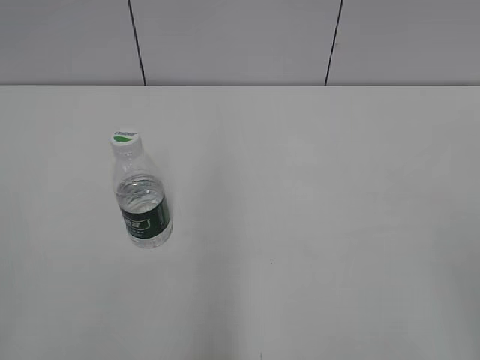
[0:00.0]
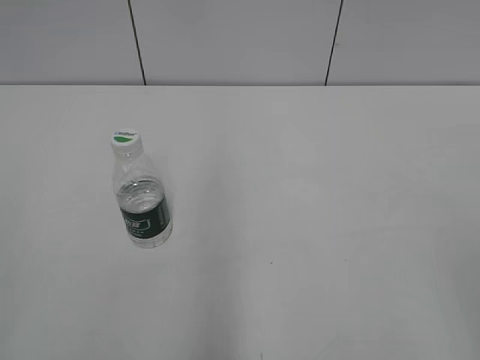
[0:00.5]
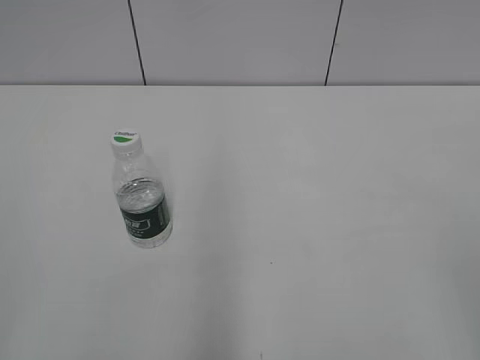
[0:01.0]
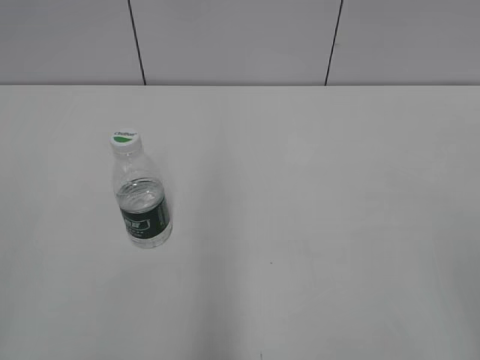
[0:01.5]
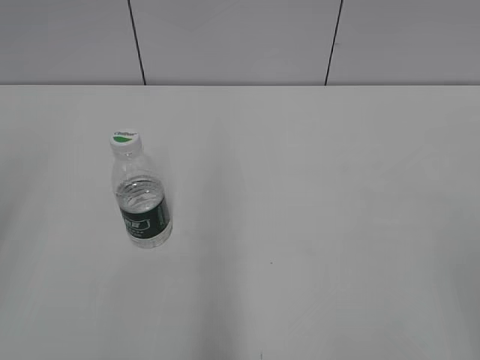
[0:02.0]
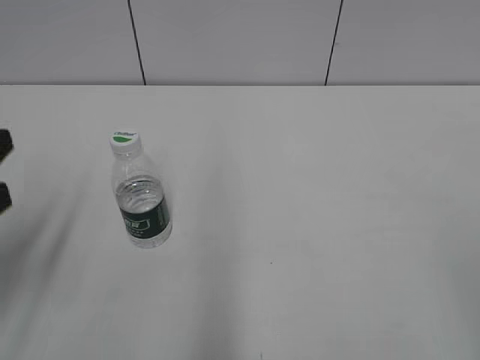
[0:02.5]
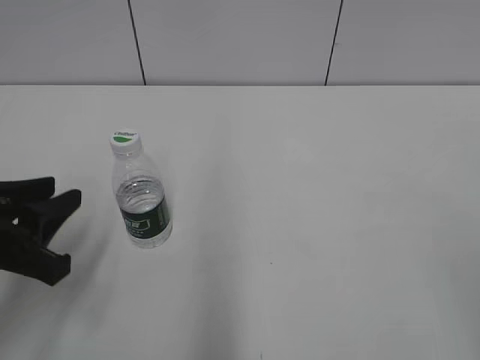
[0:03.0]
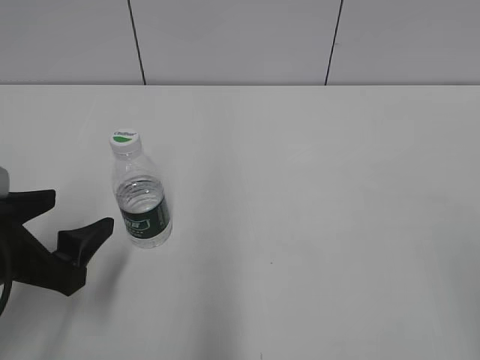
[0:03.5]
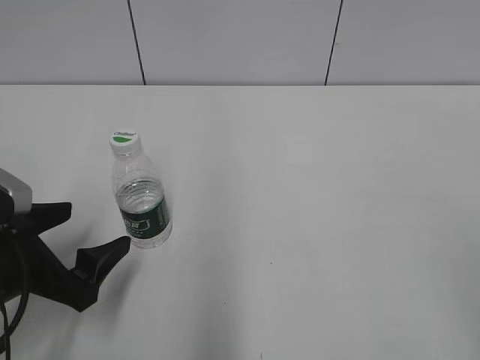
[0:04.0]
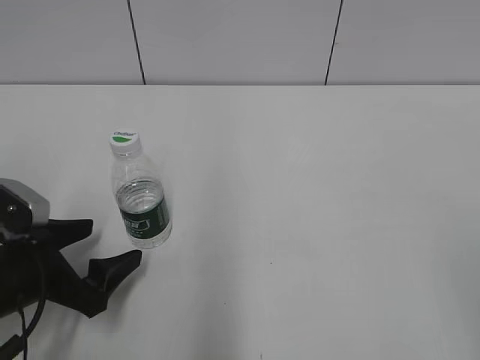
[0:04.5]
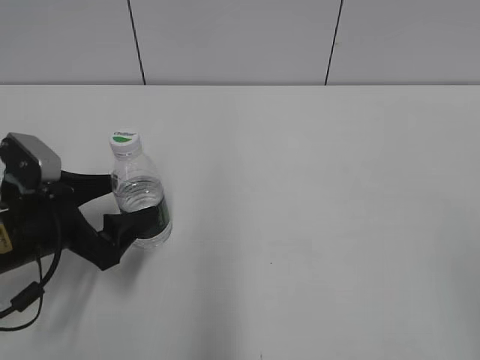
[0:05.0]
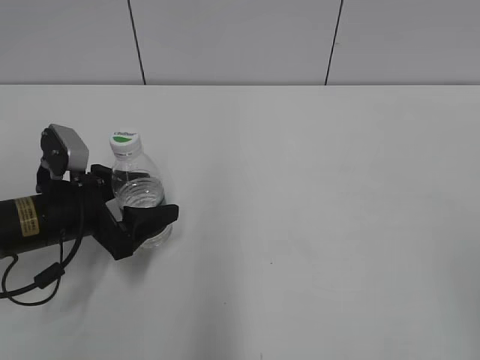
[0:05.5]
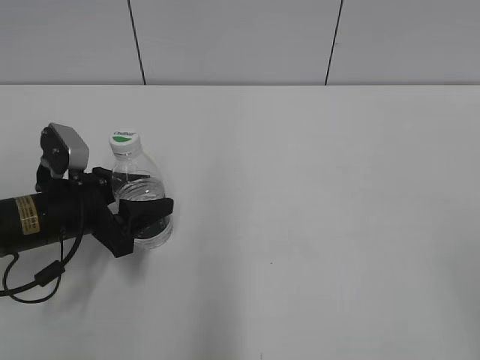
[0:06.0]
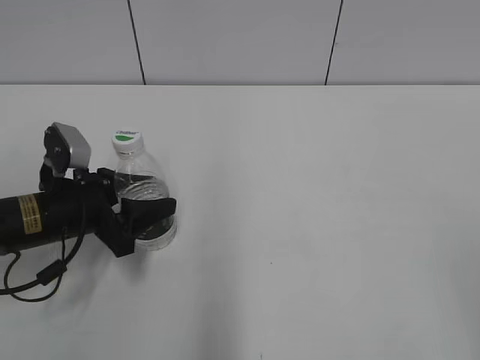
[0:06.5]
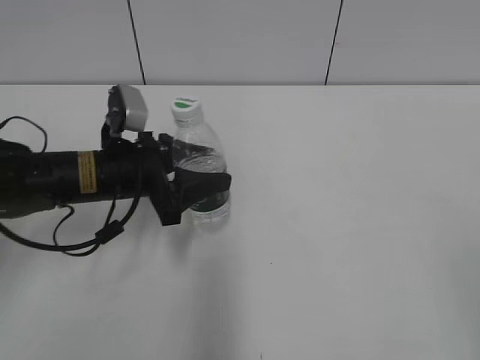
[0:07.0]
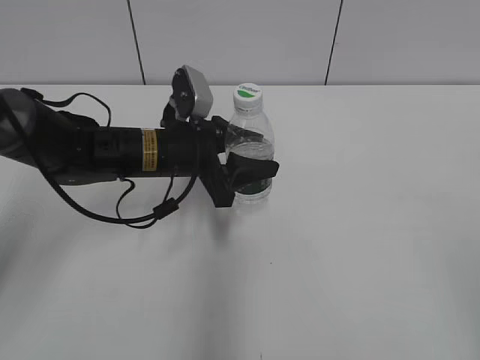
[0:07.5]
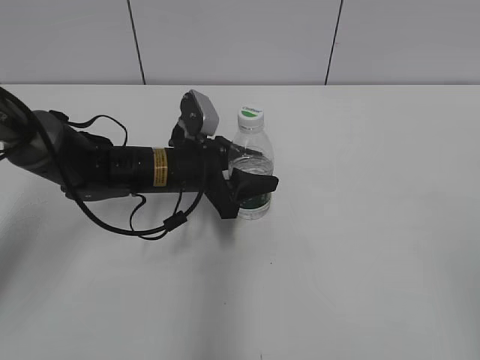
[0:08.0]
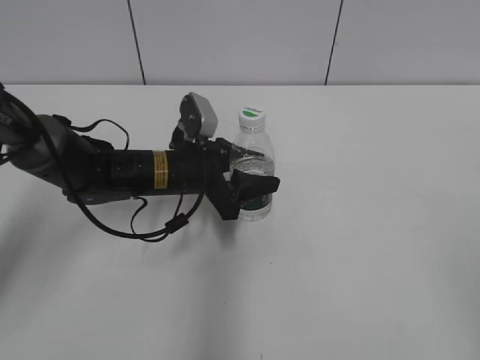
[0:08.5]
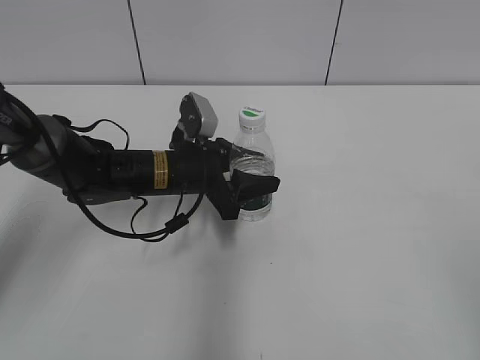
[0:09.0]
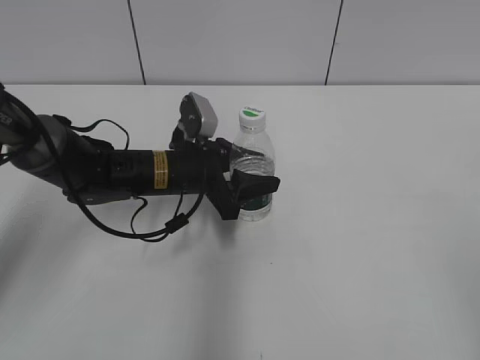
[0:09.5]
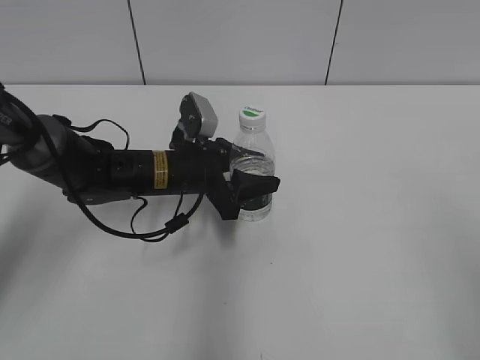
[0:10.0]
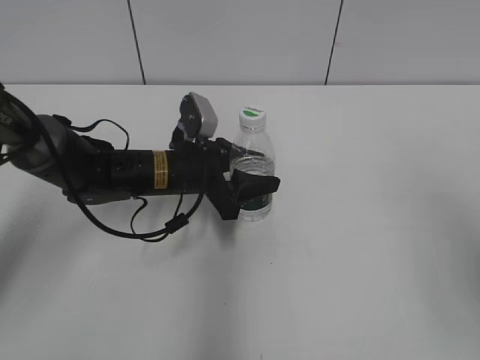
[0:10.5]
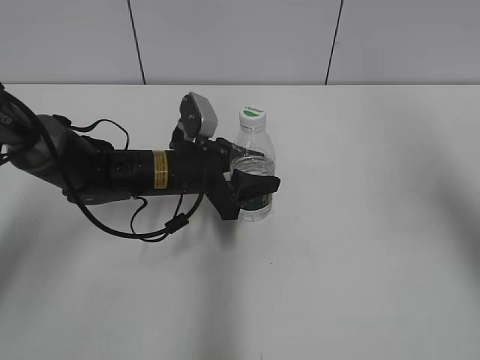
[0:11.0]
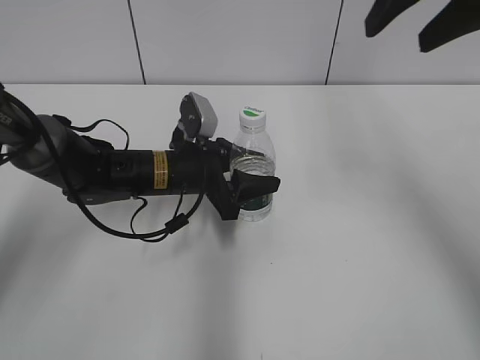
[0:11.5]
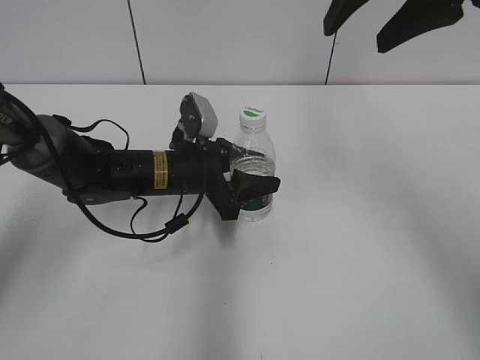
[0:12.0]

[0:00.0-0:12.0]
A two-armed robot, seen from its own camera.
Step, 0:00.0 to 0:06.0: Grasp the bottle and move it to the center of the table with the left gripper.
Step, 0:06.5 to 0:08.0: Lift the bottle and move it to the center of the table with the left gripper.
0:02.0 to 0:04.0: The left gripper travels downward and forward by roughly 25 cm, and opens.
0:04.0 to 0:06.0: The left gripper heads forward, covering approximately 10 cm, and closes up.
0:06.0 to 0:08.0: The left gripper heads to the right and forward, covering approximately 15 cm.
0:08.0 to 0:10.0: There are only small adjustments of the grippers.
0:10.0 to 0:12.0: The right gripper is displaced forward and to the left by roughly 30 cm.

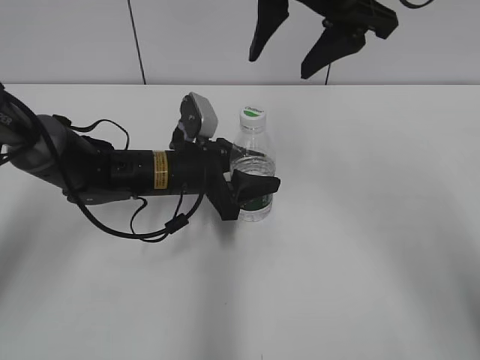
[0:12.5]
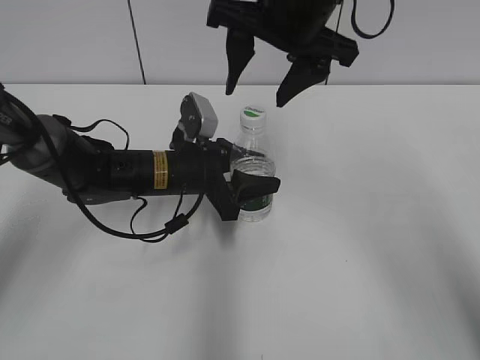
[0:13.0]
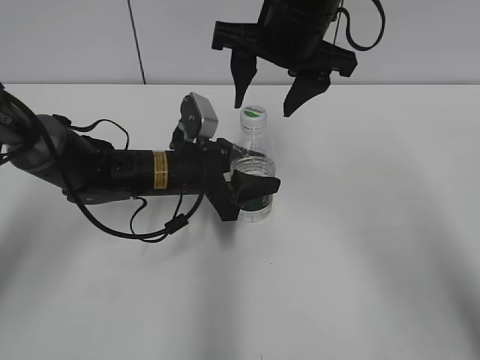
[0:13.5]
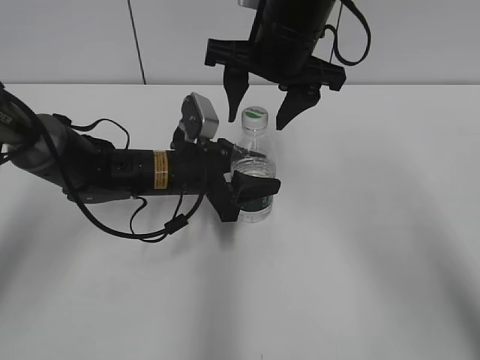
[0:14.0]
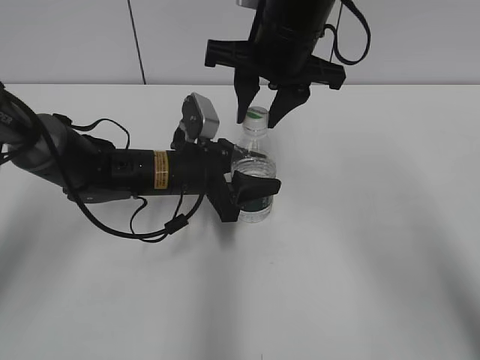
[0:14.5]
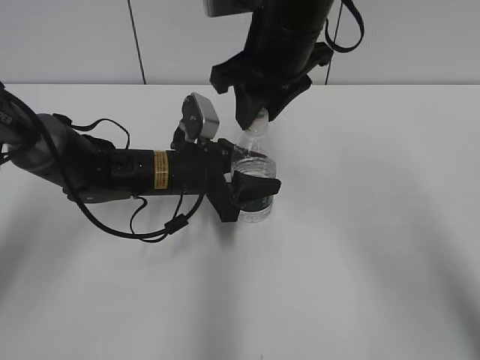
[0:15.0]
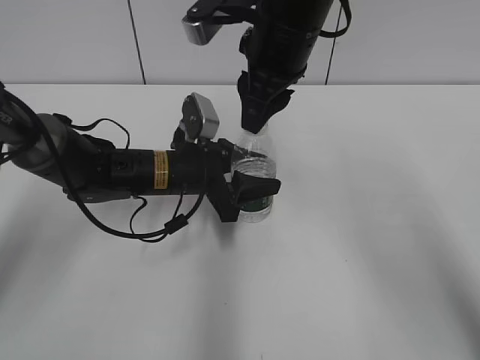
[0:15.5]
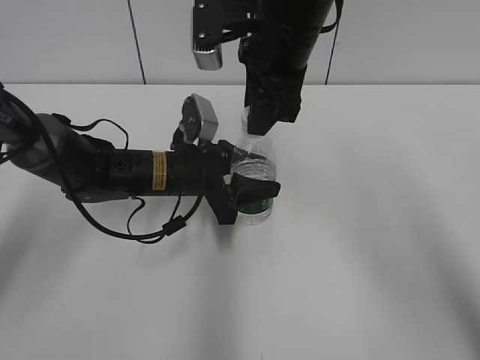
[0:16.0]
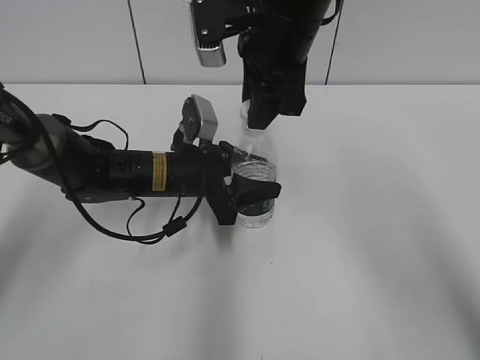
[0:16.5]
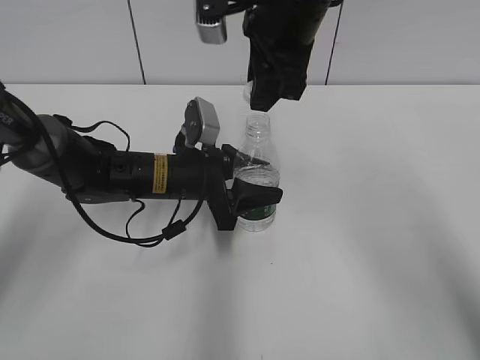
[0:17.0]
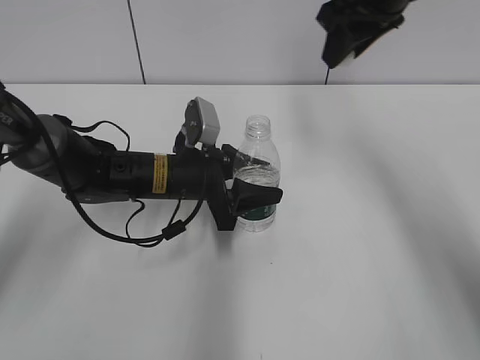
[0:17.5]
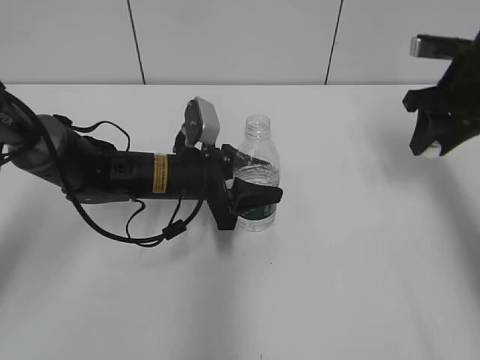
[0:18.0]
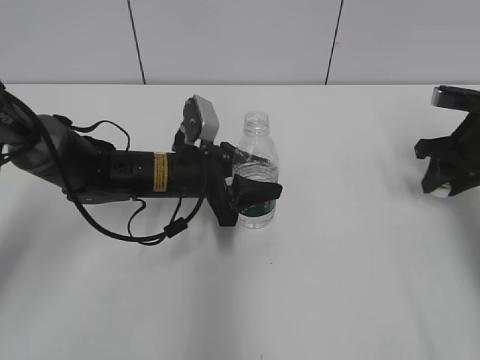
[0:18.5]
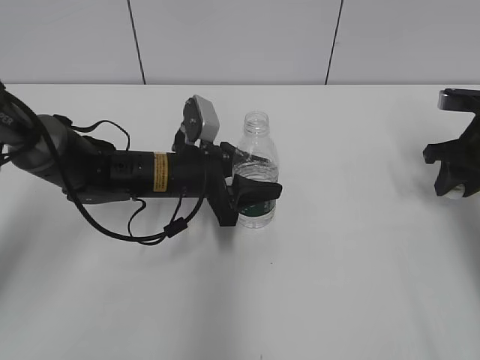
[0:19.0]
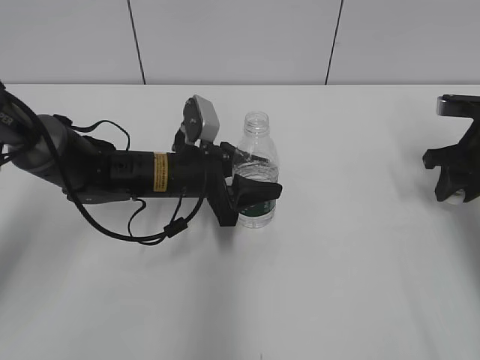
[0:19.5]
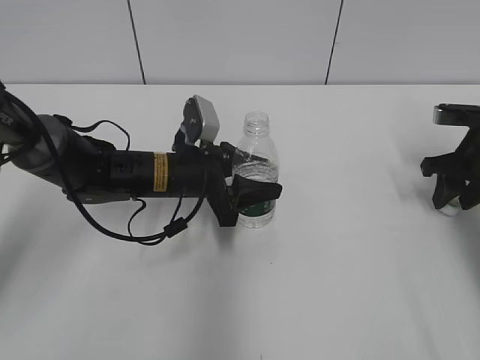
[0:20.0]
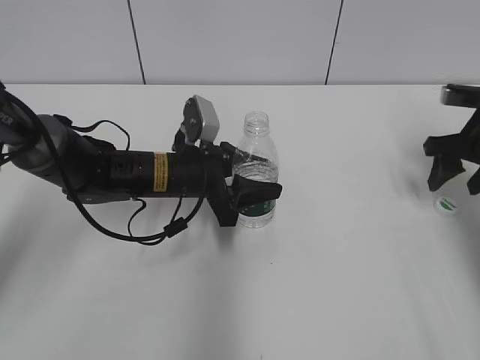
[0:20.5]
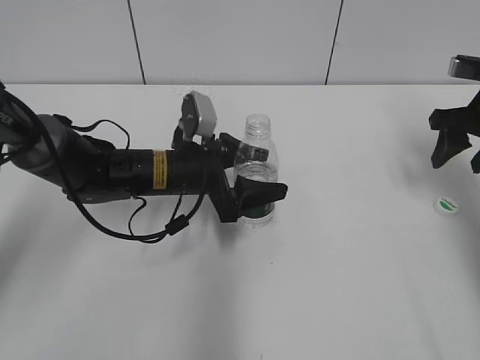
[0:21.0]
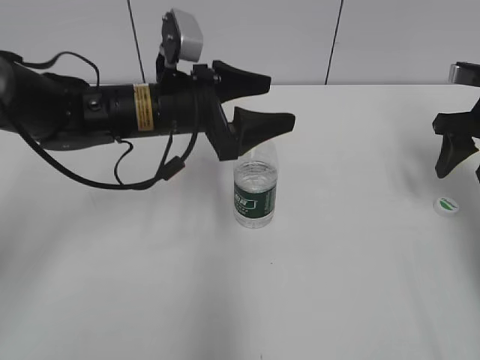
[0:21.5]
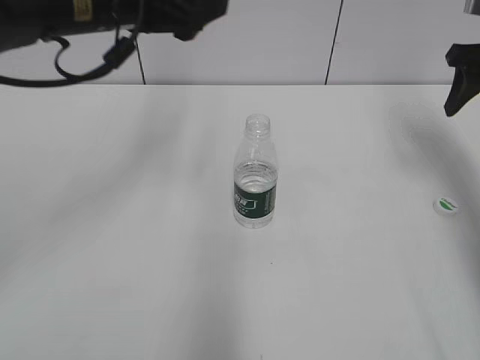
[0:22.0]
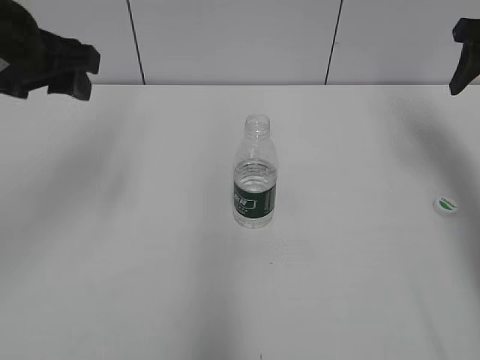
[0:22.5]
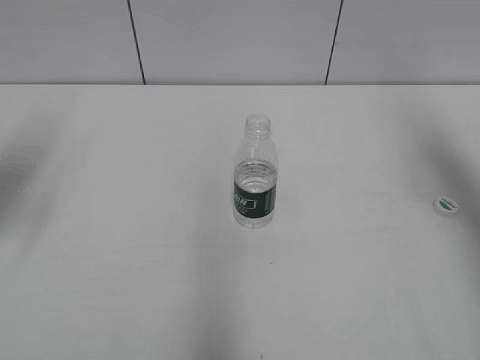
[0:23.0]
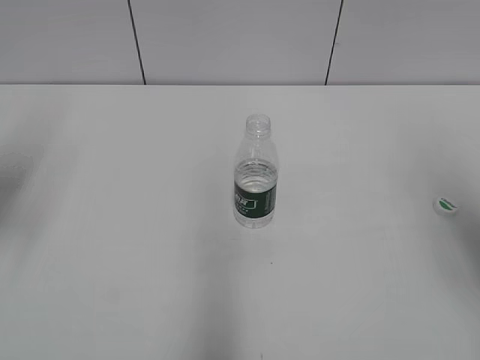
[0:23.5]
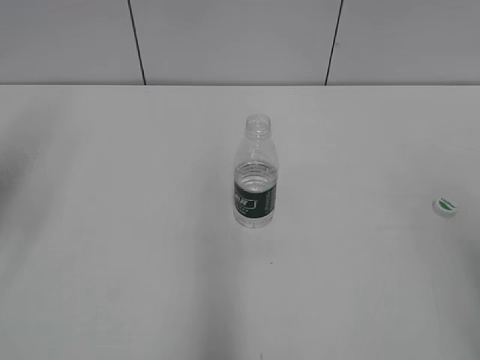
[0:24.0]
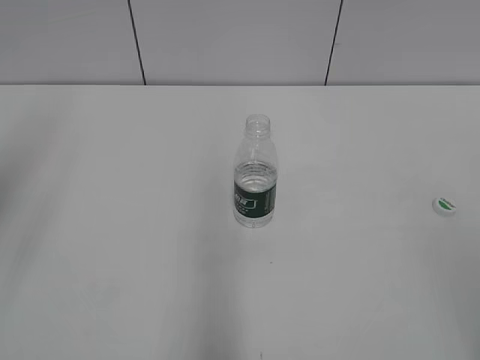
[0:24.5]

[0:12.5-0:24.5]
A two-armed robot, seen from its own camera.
Step, 0:12.5 to 0:17.0: Unscrew the bottle cap with the right gripper while holding the bottle with the left gripper.
Step, 0:17.5 to 0:20.0: Place the bottle cap on the table with the right gripper.
0:12.5 to 0:14.5: The right gripper is displaced downward by approximately 5 cm, and closes its fingers.
0:16.5 to 0:18.5: The right gripper goes approximately 30 cm to the right and downward.
0:18.5 to 0:20.5: The right gripper opens its fingers.
0:20.5 to 0:22.5: The left gripper moves upward and to the left, about 25 cm. Meanwhile the right gripper moves upward, about 15 cm.
0:22.5 to 0:24.5: The right gripper moves backward, about 40 cm. The left gripper is displaced backward, to the left and upward by some 15 cm.

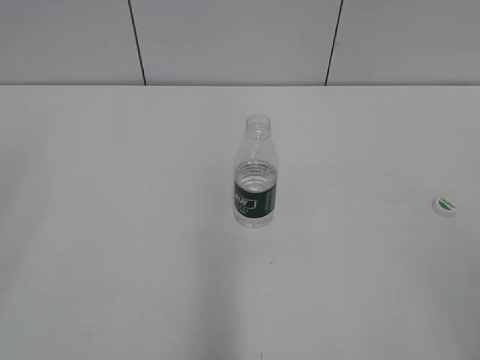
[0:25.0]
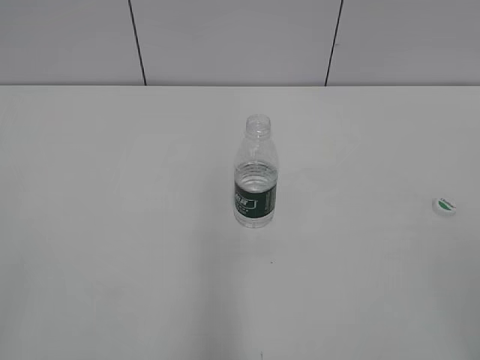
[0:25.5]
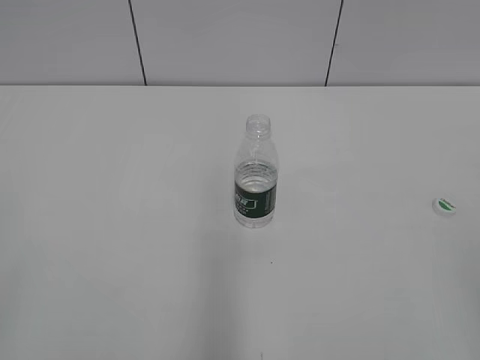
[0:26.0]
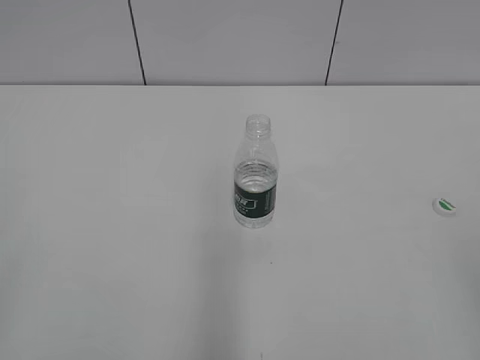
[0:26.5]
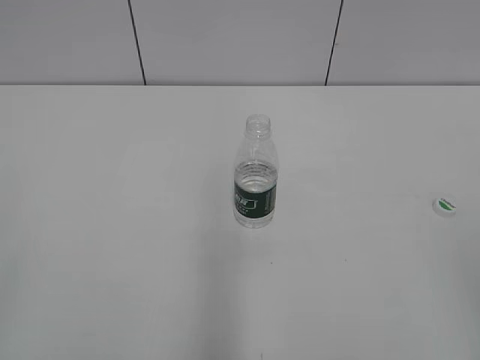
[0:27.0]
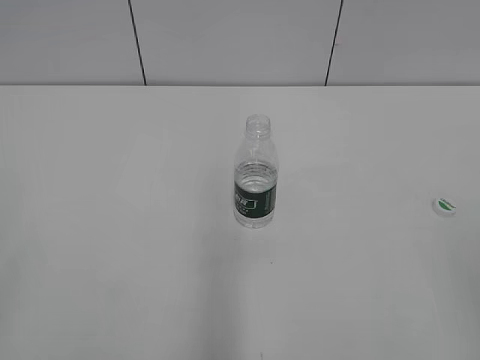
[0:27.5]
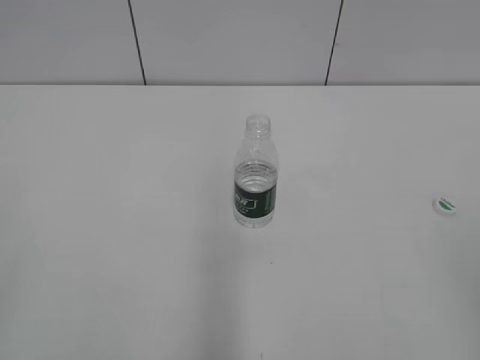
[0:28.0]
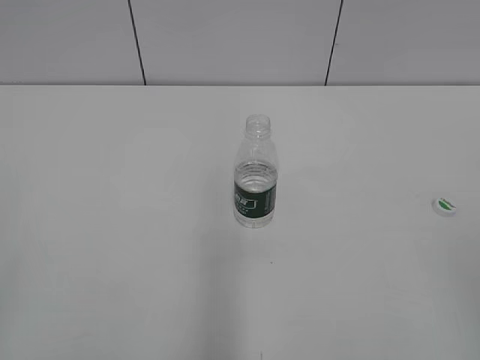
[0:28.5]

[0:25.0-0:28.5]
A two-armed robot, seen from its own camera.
0:27.0 to 0:28.5: Both grippers stay about where they are.
